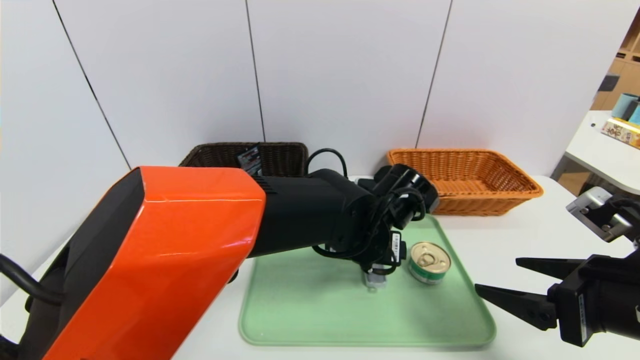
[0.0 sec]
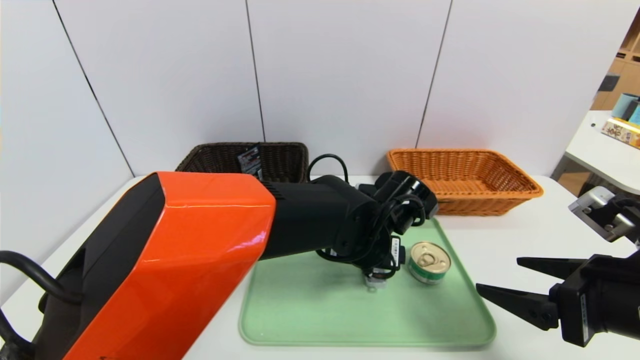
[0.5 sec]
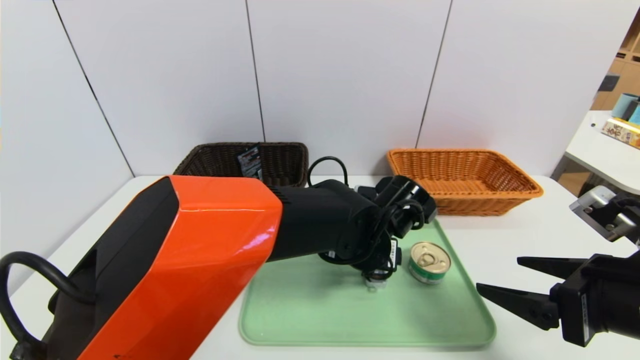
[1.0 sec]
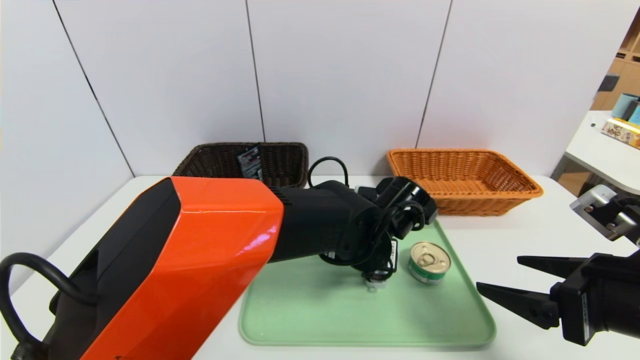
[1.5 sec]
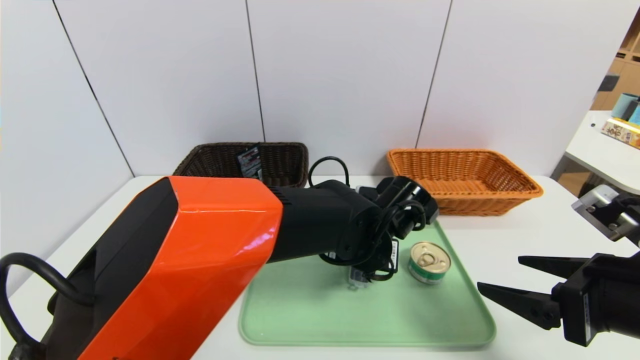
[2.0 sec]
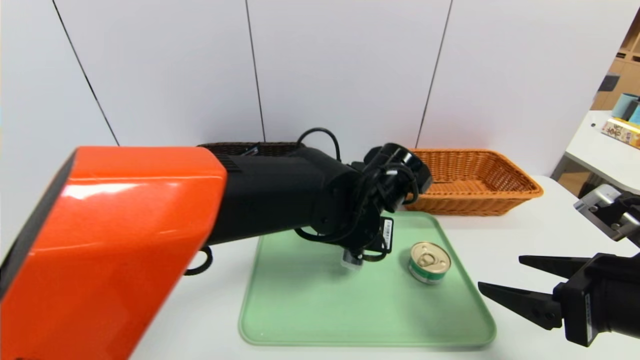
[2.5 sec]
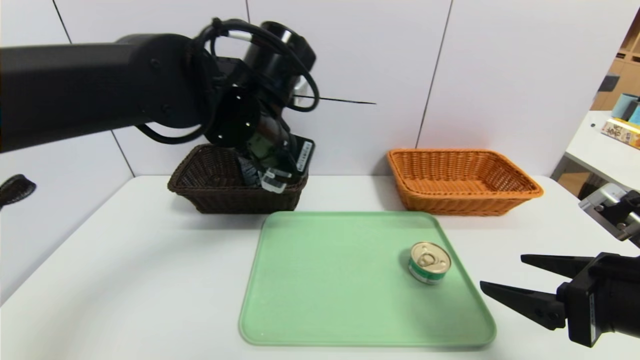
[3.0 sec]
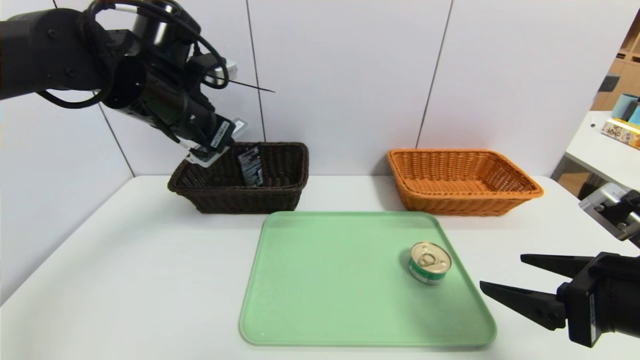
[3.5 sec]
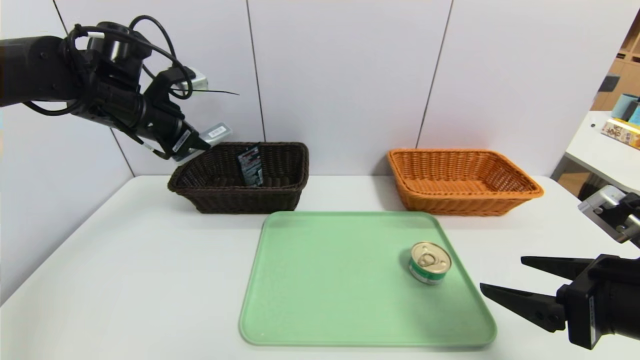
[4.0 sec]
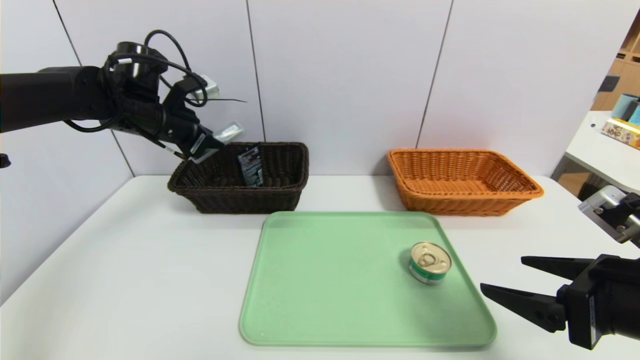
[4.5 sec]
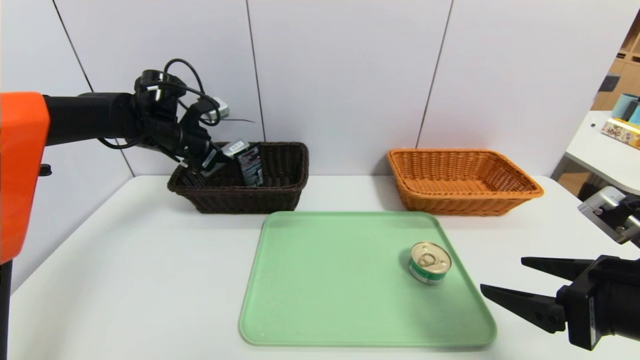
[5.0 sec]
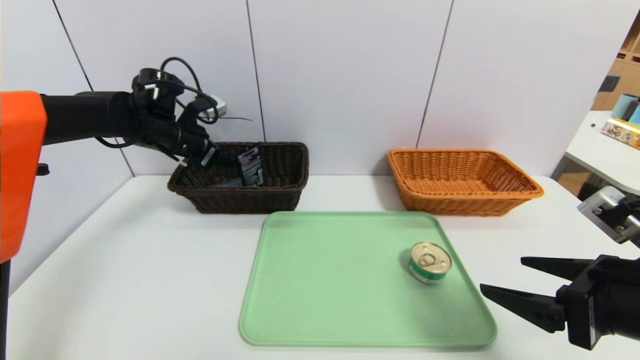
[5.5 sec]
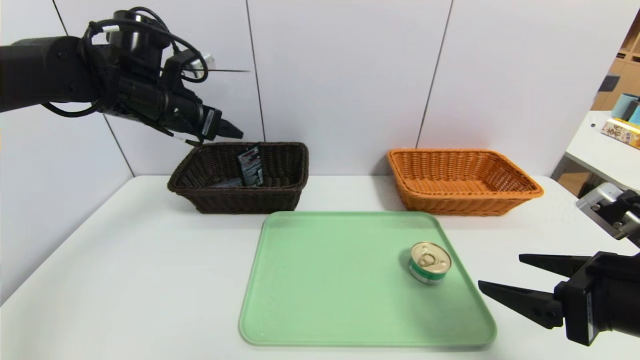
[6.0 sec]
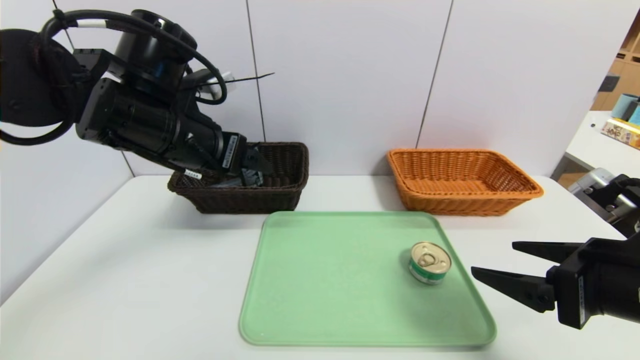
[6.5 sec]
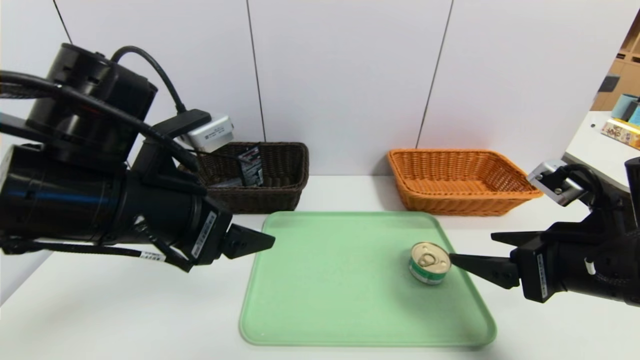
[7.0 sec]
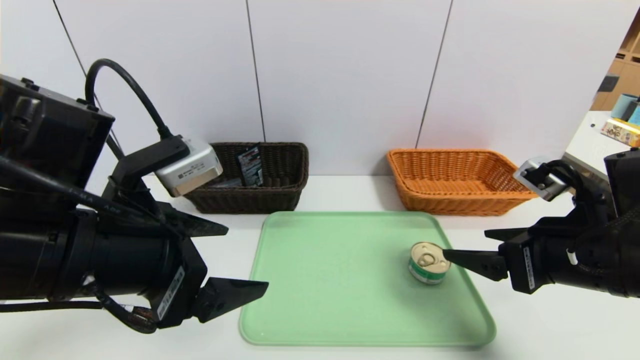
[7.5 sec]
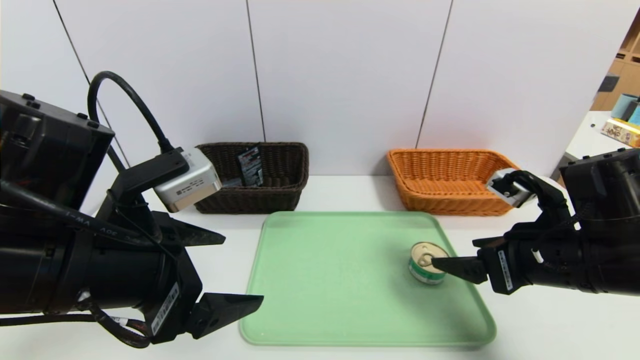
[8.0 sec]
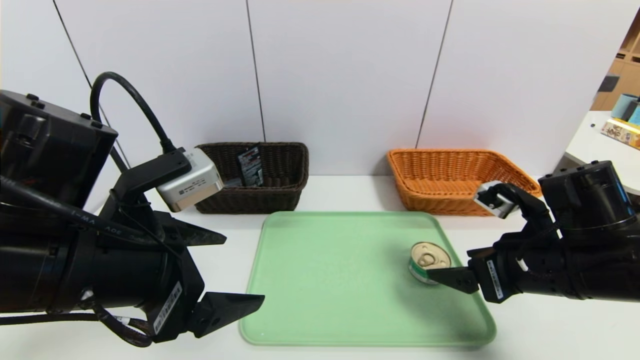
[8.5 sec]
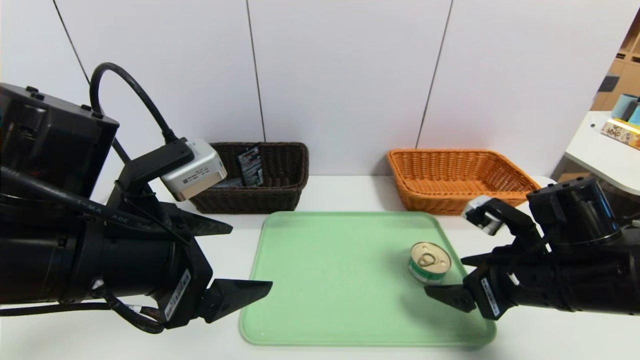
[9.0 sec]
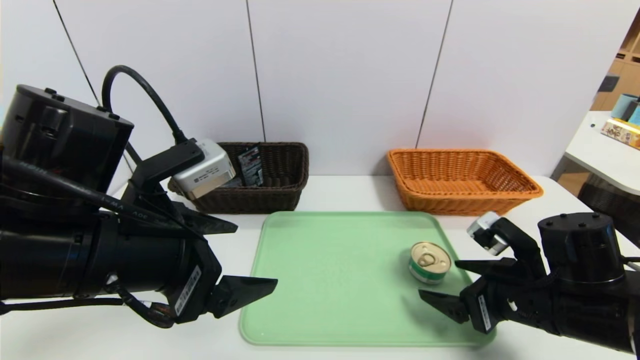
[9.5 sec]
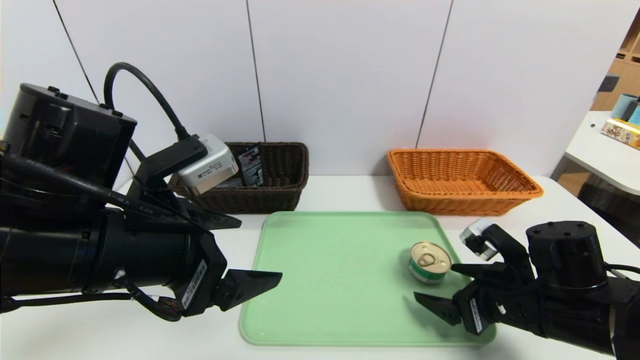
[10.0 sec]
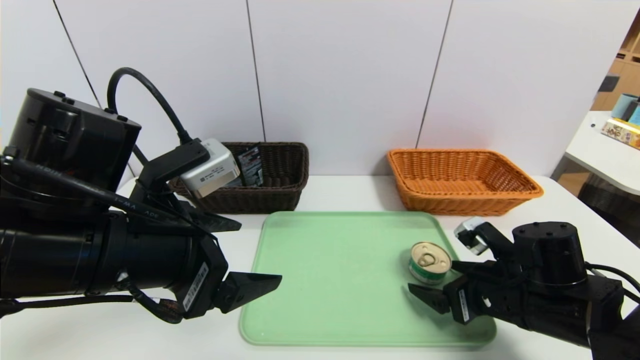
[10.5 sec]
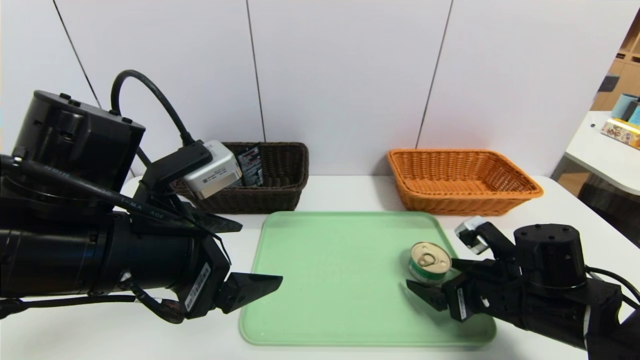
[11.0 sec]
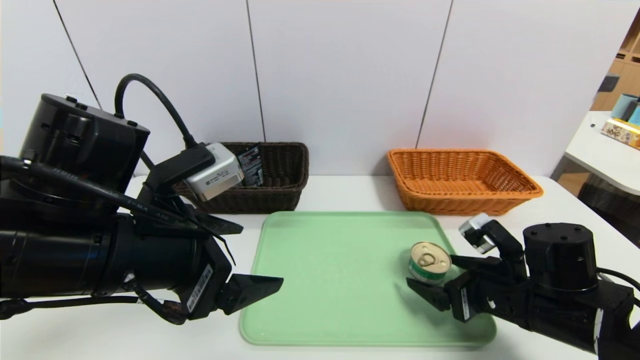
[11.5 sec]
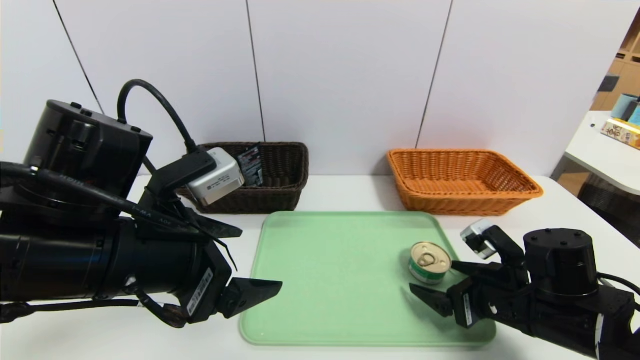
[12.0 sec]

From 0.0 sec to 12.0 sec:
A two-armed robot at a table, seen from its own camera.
Task of the whole recording: place the food in the right basket with the right gripper, and place the non food items in the left basket with the left gripper.
Step, from 0.0 sec to 5.5 sec: Grasp the compass and put it in the left basket.
From 0.0 sec to 2.0 sec: The left gripper closes its fingers.
From 2.0 sec to 4.0 sec: The left gripper moves to the left and upward, some 35 cm.
From 4.0 sec to 6.0 sec: The left gripper reaches roughly 5 cm downward, then returns, and opens its fingers.
From 6.0 sec to 8.0 sec: The left gripper moves backward, some 20 cm, while the right gripper goes about 5 cm forward.
From 8.0 sec to 10.0 sec: The right gripper moves downward, approximately 10 cm.
From 10.0 sec to 12.0 sec: There are only small adjustments of the grippers.

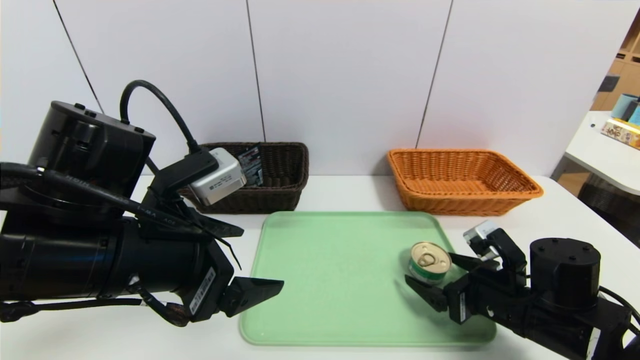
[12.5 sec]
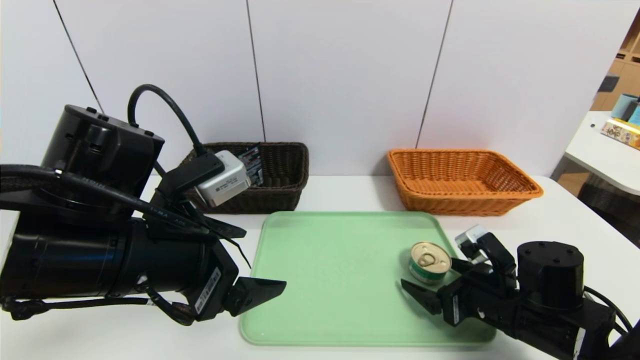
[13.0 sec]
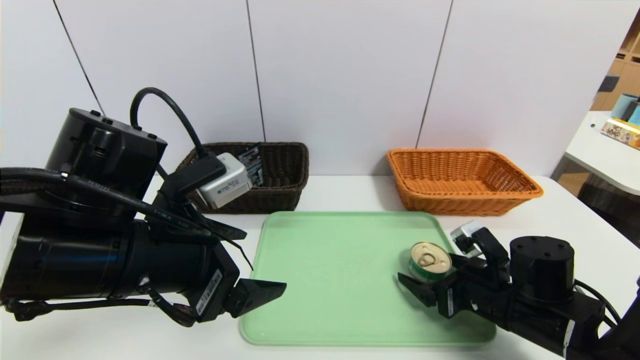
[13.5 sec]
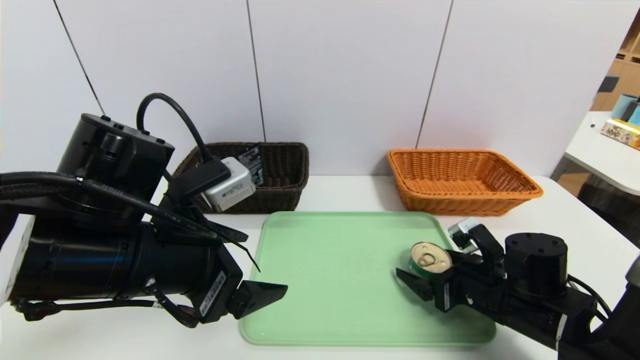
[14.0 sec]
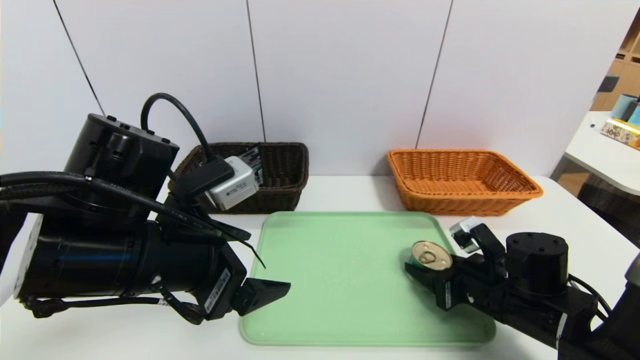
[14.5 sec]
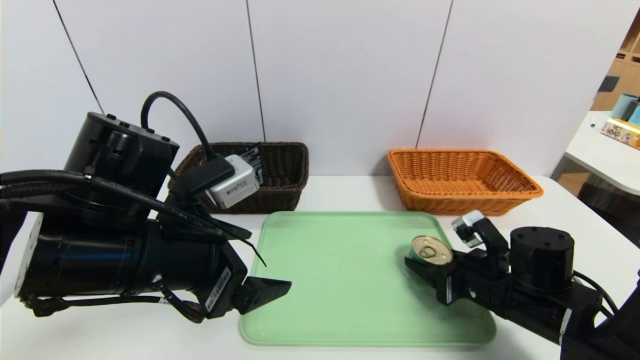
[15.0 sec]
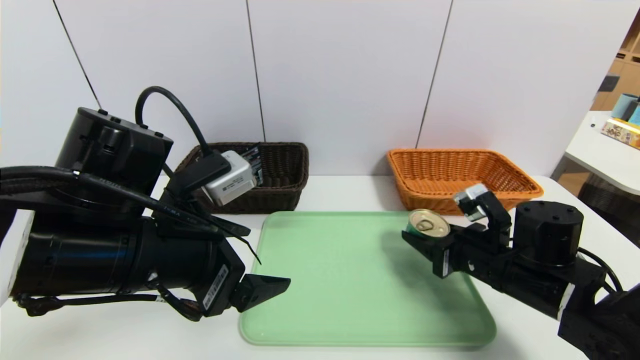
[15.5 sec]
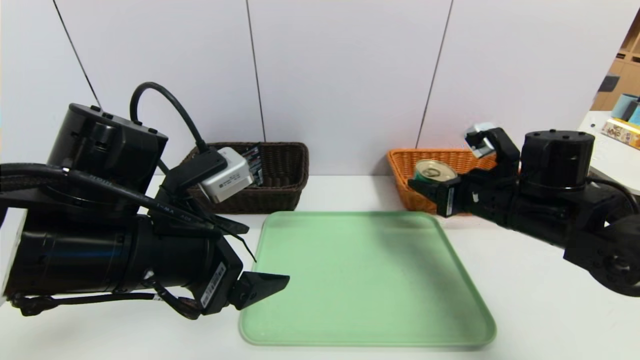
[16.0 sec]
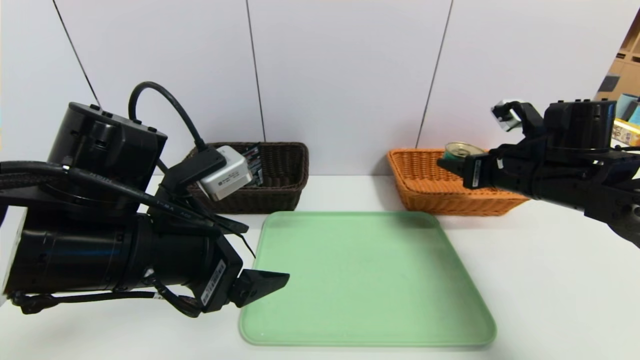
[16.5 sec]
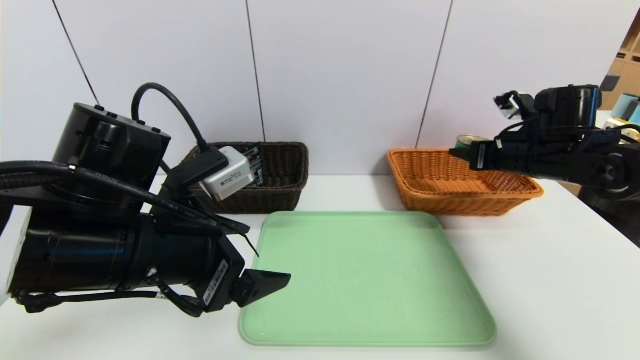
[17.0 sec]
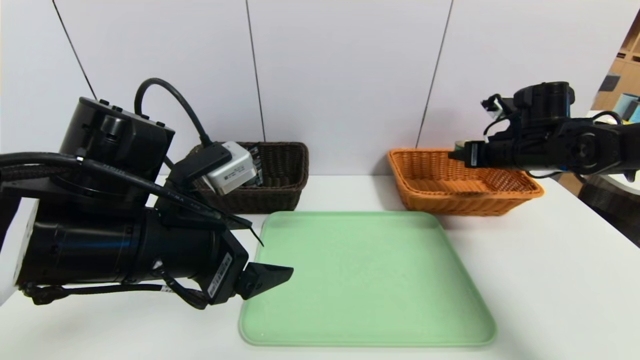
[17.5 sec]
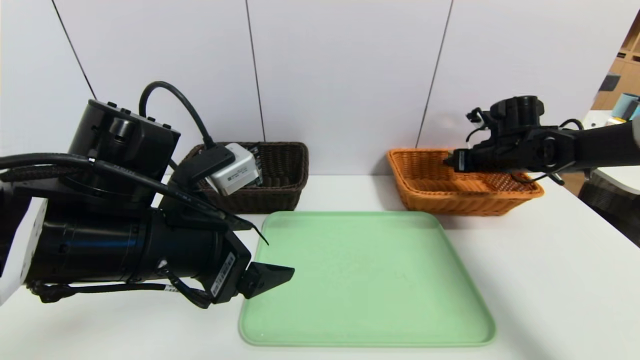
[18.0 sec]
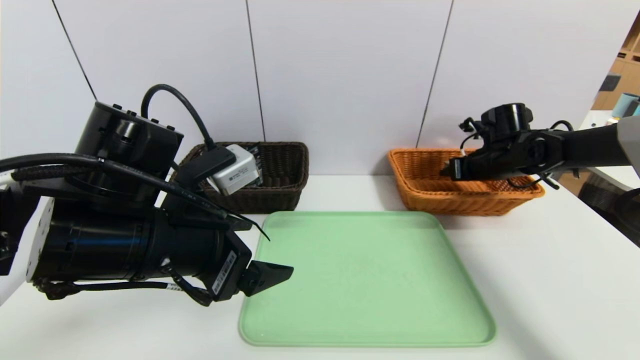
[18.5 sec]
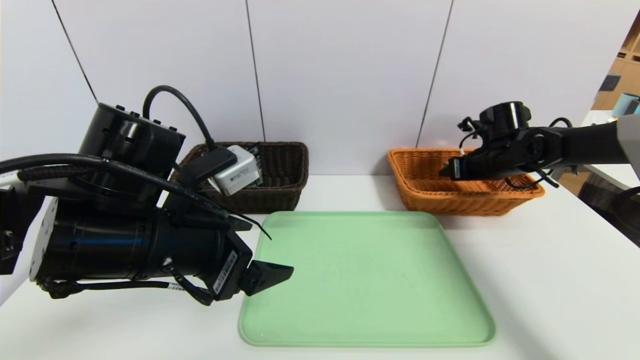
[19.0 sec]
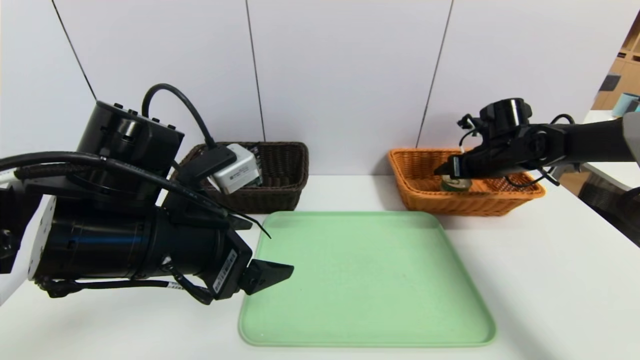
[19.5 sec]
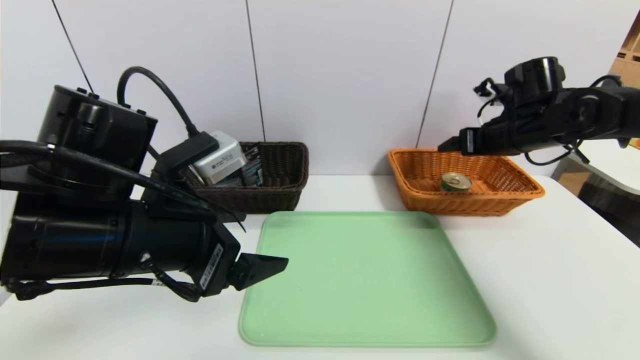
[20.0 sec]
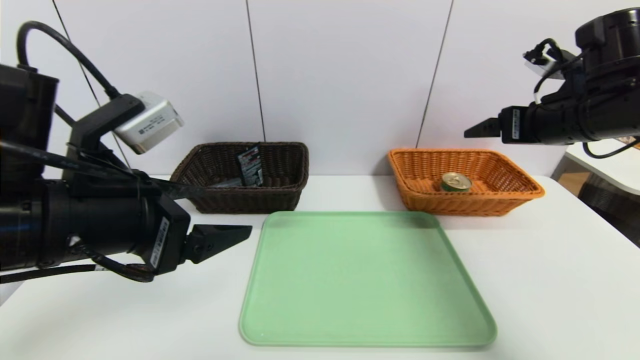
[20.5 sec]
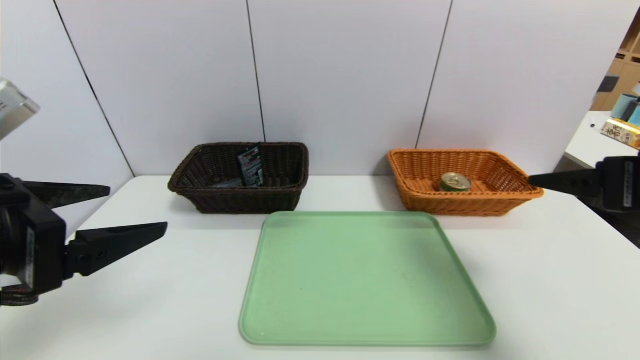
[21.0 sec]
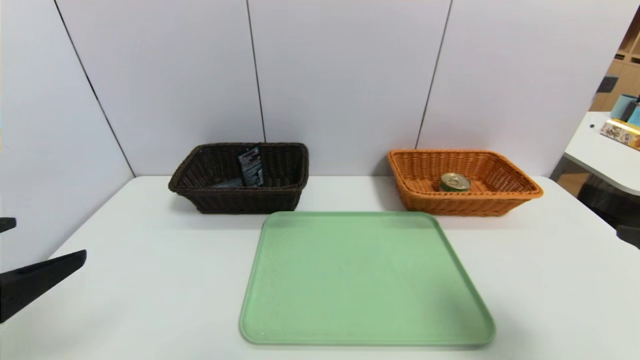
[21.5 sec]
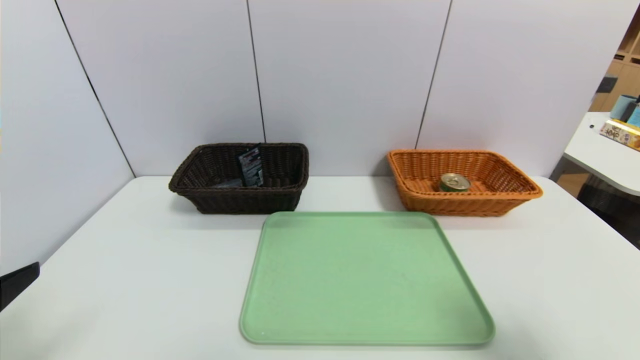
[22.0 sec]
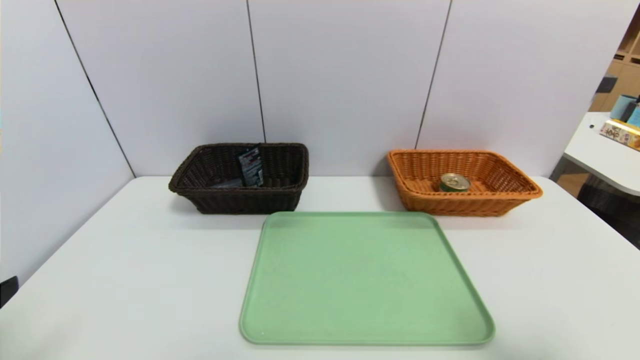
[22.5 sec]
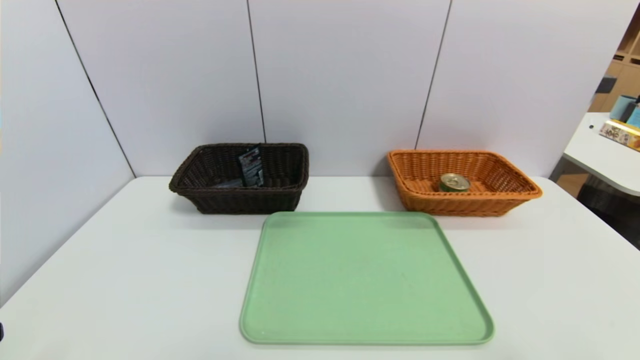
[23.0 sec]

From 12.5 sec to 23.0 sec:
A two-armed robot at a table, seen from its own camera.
Task of the whole recording: place the food in the right basket with the right gripper, and place the non food items in the left basket with the left gripper.
Step, from 12.5 sec to 19.0 sec: Grasp the can and put it in the right basket.
From 12.5 sec to 14.5 sec: The right gripper closes its fingers.
From 14.5 sec to 16.5 sec: The right gripper heads upward and forward, covering about 15 cm.
From 16.5 sec to 19.0 sec: The right gripper is displaced forward by roughly 15 cm.
From 19.0 sec to 21.0 sec: The right gripper is displaced backward and upward by roughly 30 cm, and opens its fingers. Meanwhile the left gripper travels to the left, backward and upward by approximately 15 cm.
From 21.0 sec to 23.0 sec: The right gripper shifts some 20 cm backward. Meanwhile the left gripper travels backward, downward and to the left by some 15 cm.
